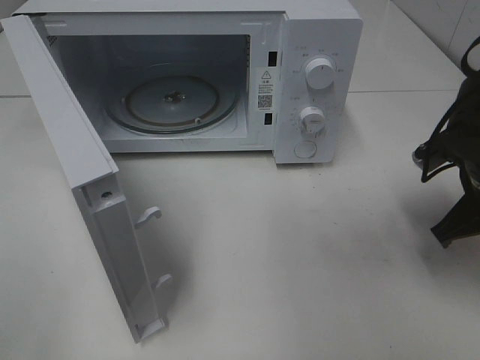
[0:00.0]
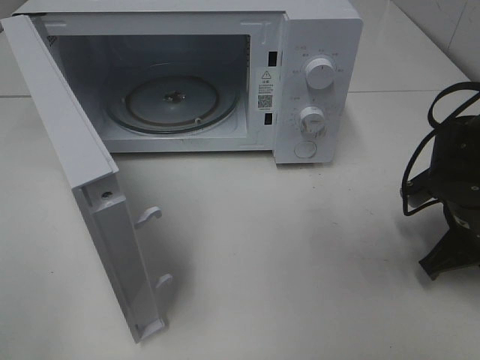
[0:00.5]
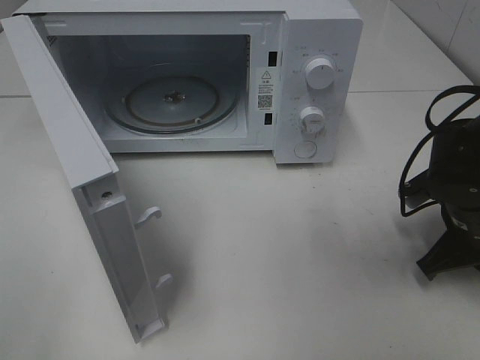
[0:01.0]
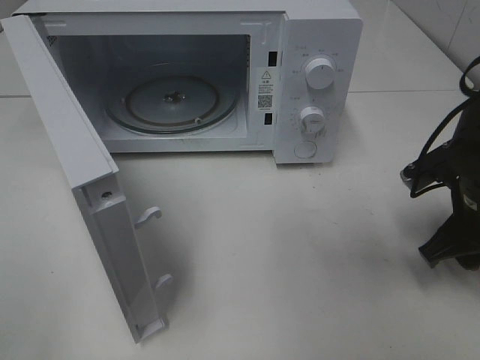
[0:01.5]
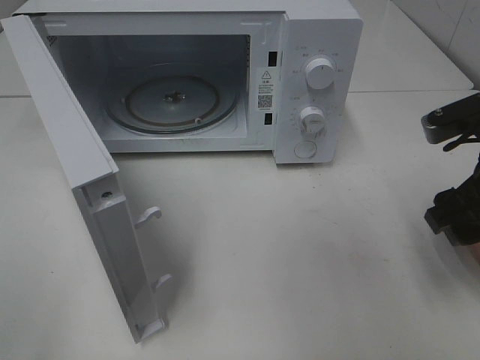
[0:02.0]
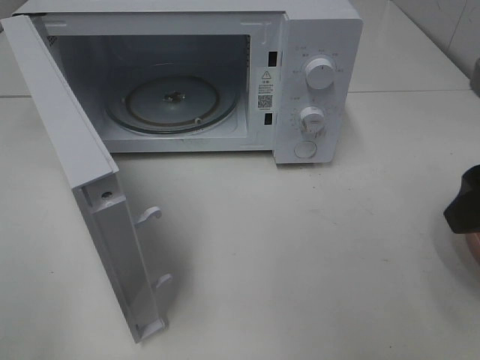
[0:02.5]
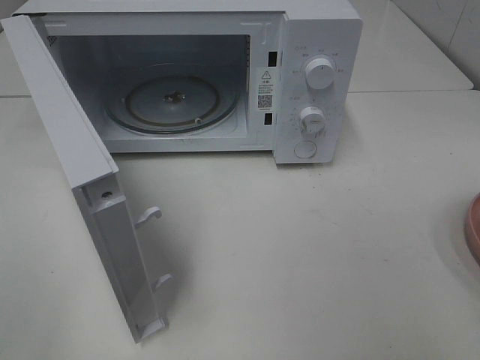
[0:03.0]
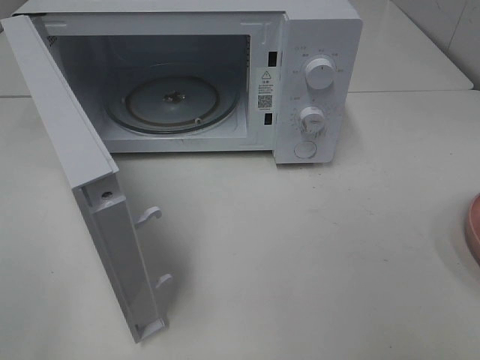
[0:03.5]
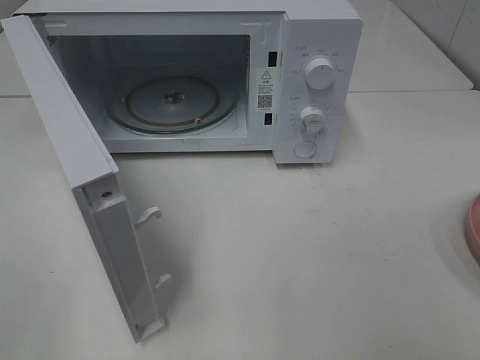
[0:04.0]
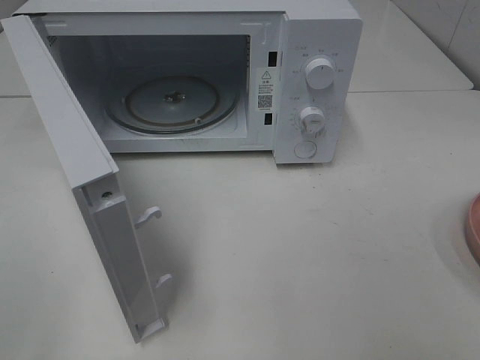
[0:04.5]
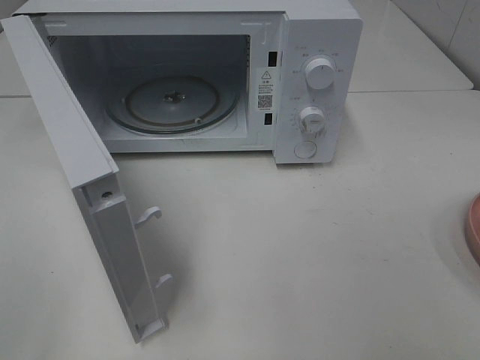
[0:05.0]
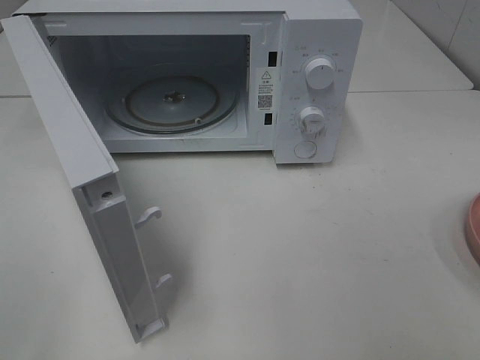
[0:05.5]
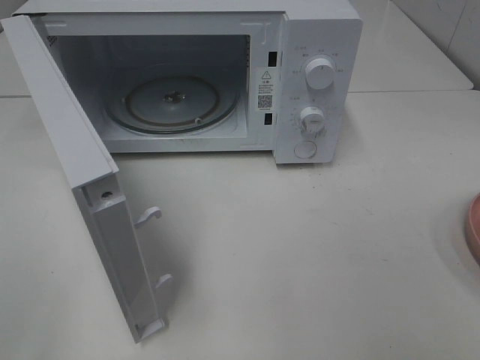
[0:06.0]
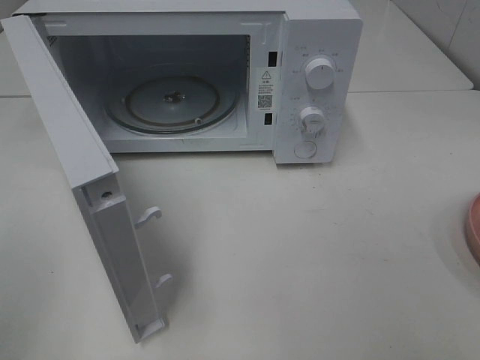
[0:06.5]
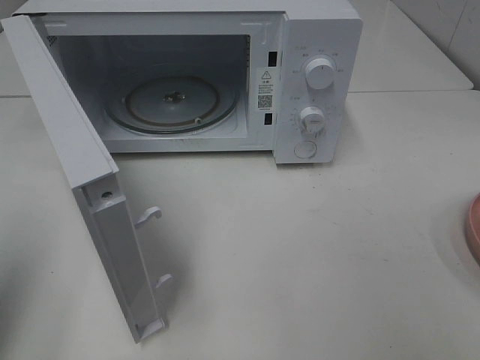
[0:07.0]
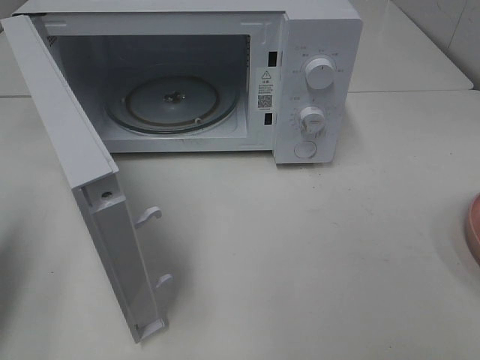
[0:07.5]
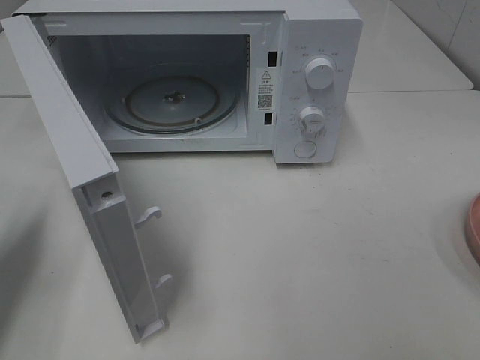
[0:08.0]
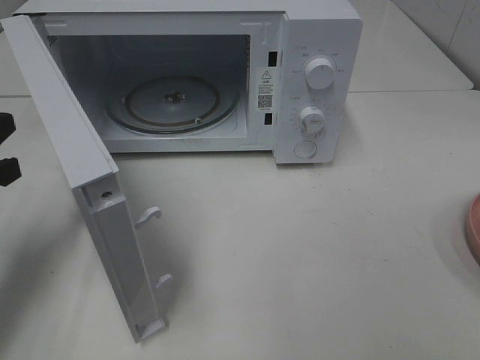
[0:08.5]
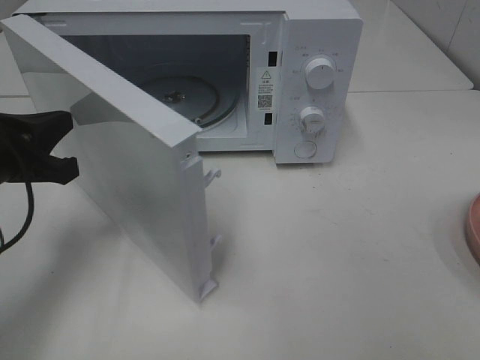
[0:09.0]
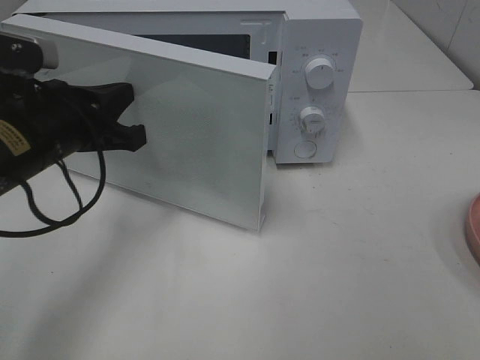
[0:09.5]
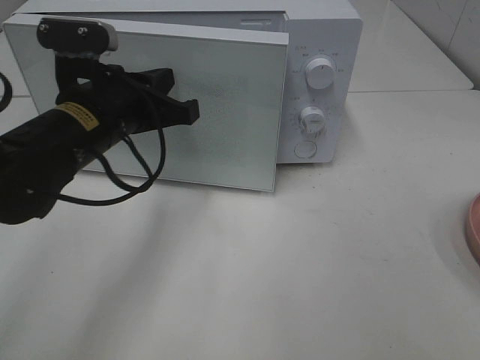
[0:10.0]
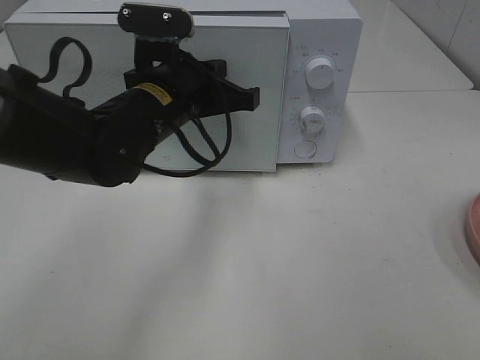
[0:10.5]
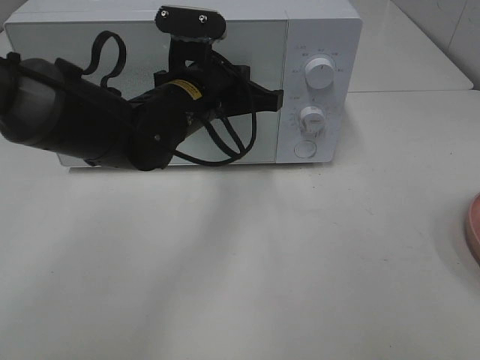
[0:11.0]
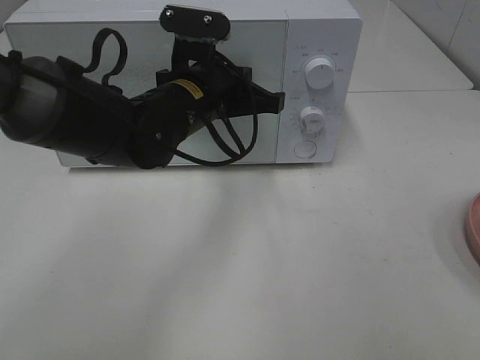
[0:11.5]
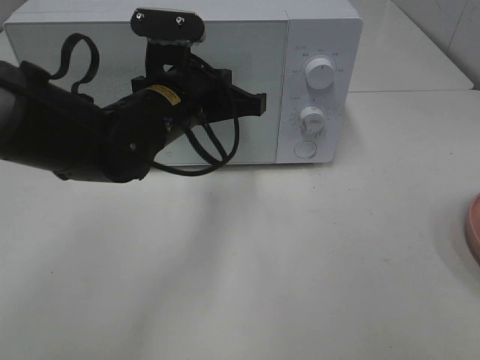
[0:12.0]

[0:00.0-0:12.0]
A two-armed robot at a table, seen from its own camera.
Task of the whole recording: Heat Sandwich.
Step, 2.0 to 11.5 s: Left hand: close the microwave door.
0.0 to 2.0 s: The right gripper is displaced upward by approximately 5 cm, and opens its fingers.
2.0 to 4.0 s: The right gripper shifts roughly 20 cm backward.
4.0 to 6.0 s: Both grippers stay about where they are.
6.0 to 8.0 s: The left gripper goes roughly 25 cm forward and downward, and closes its fingers.
8.0 to 10.0 s: The left gripper travels to the right and forward by roughly 20 cm.
10.0 to 12.0 s: The left gripper heads to the right, covering roughly 5 cm.

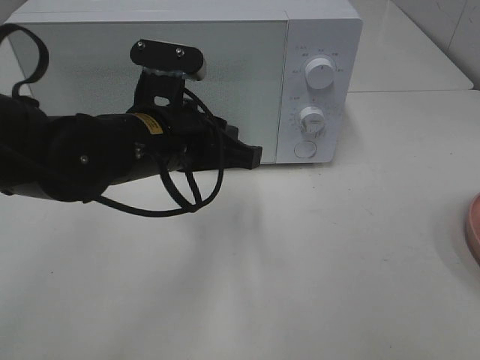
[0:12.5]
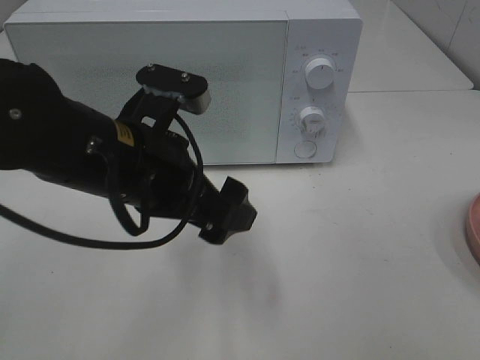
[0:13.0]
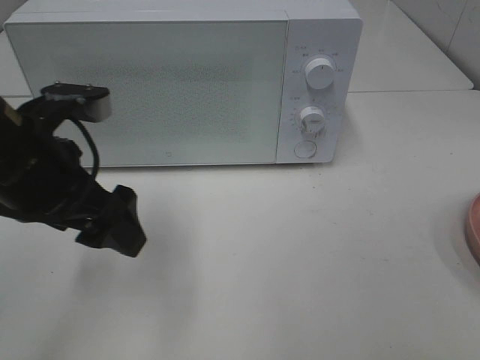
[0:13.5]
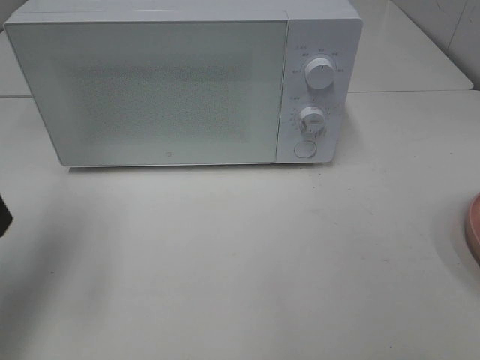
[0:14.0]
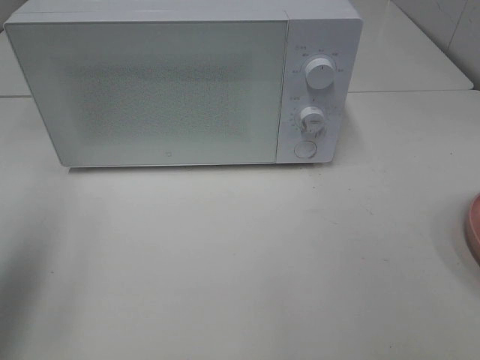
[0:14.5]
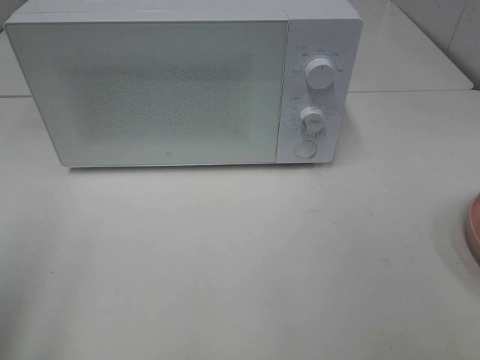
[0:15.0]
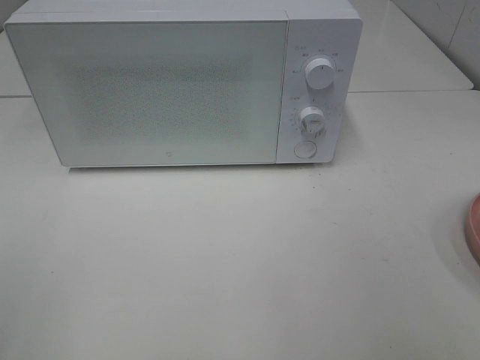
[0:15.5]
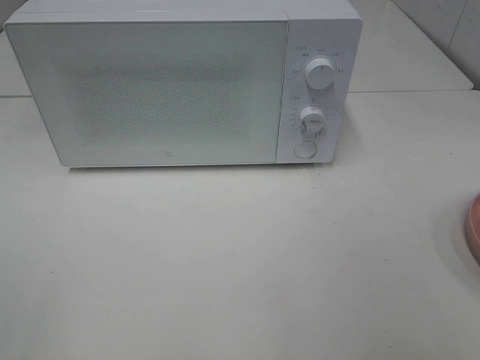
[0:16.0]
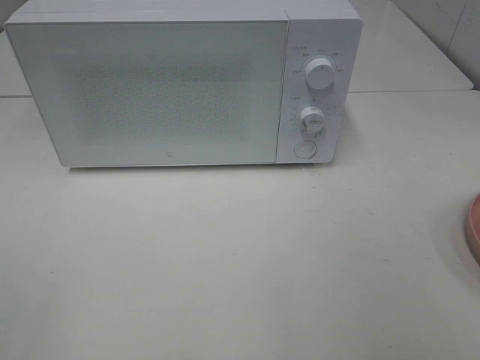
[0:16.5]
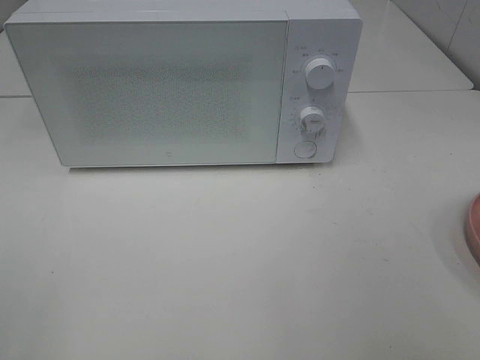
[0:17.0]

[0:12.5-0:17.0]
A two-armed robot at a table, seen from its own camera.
Task of the whole recording: Heat Sandwich.
12.5 to 14.5 s: The left gripper is displaced to the left and upward by roughly 25 cm, and opens its fingers.
14.5 to 17.0 s: The left gripper goes about 20 cm backward.

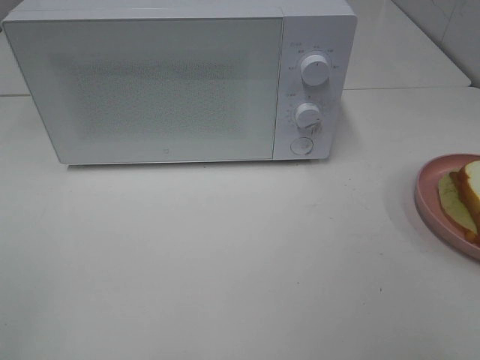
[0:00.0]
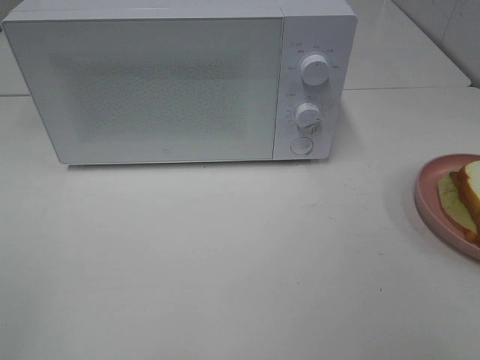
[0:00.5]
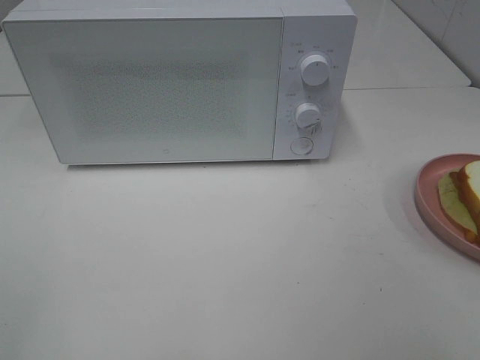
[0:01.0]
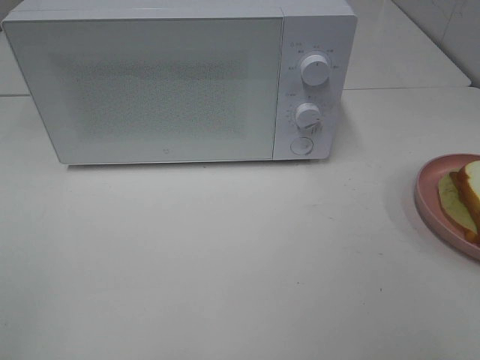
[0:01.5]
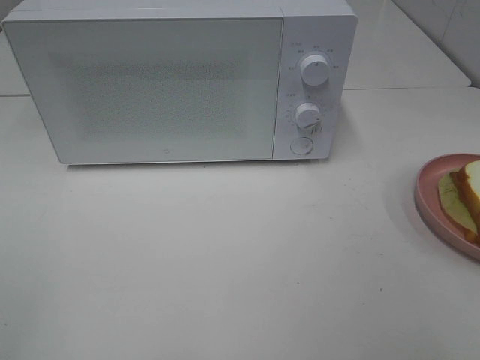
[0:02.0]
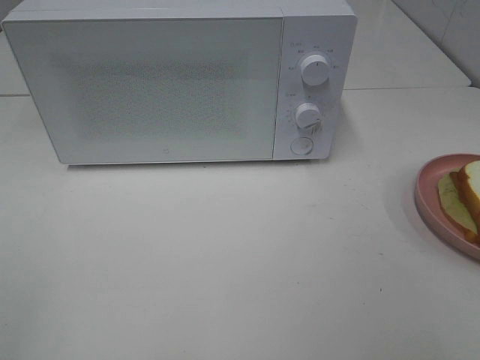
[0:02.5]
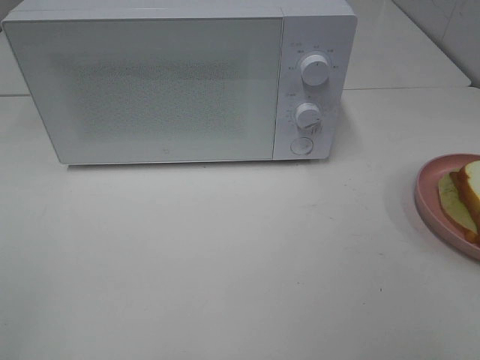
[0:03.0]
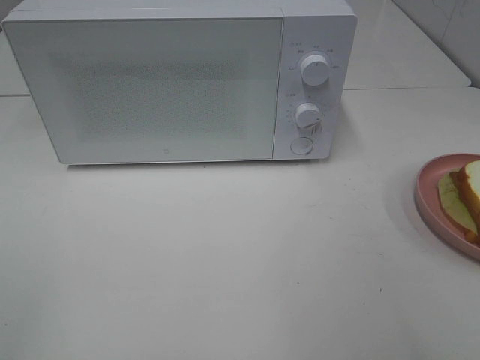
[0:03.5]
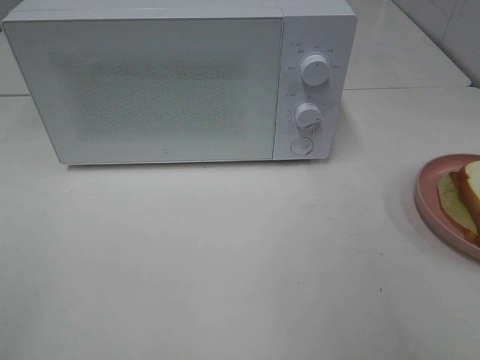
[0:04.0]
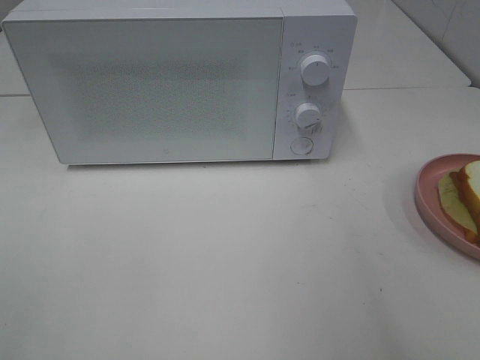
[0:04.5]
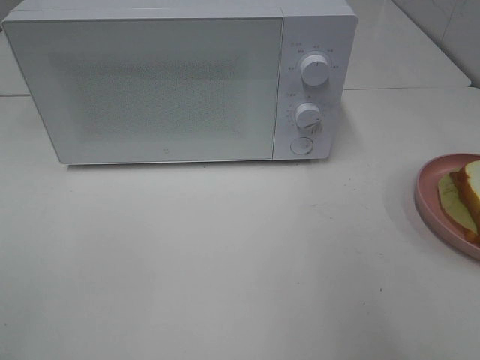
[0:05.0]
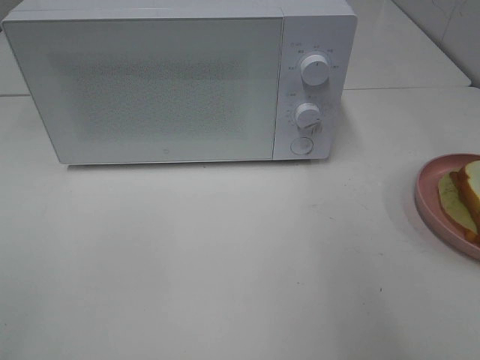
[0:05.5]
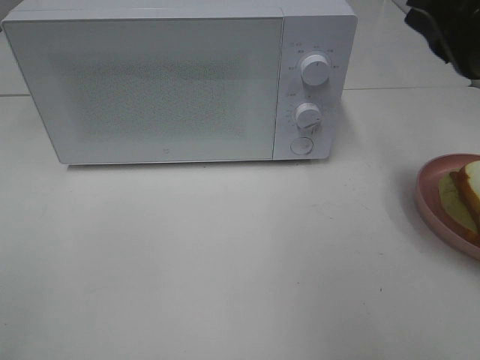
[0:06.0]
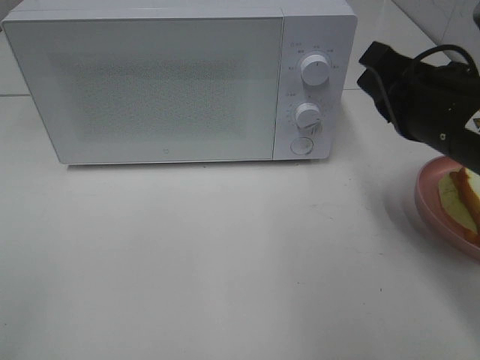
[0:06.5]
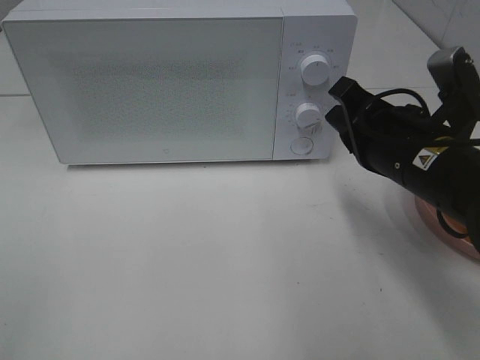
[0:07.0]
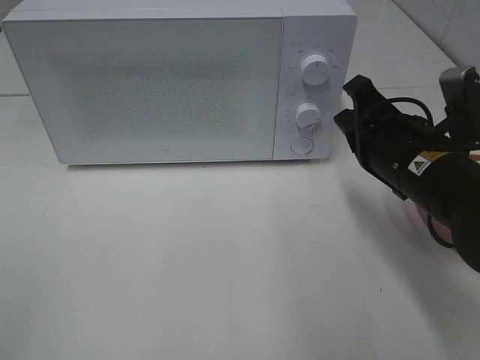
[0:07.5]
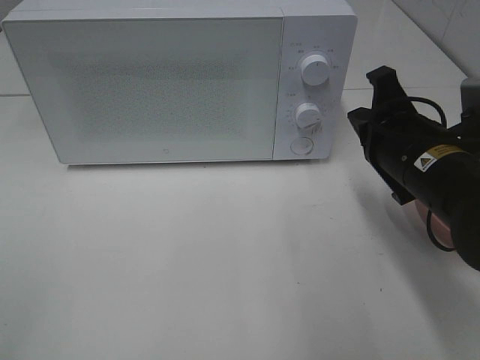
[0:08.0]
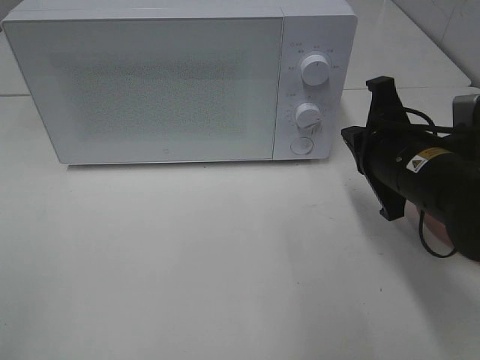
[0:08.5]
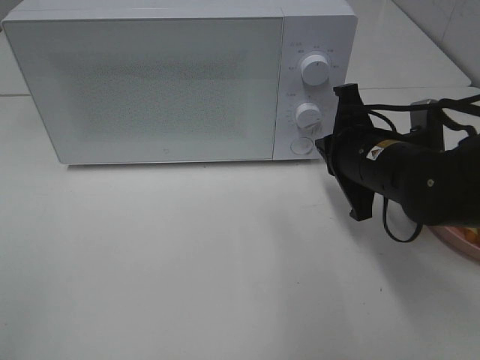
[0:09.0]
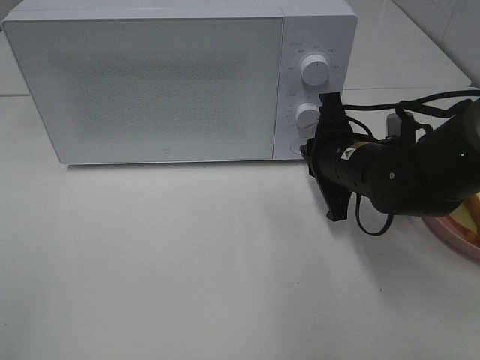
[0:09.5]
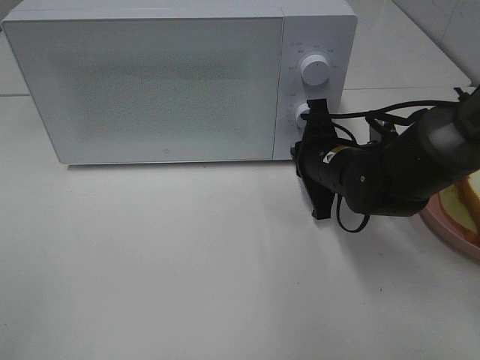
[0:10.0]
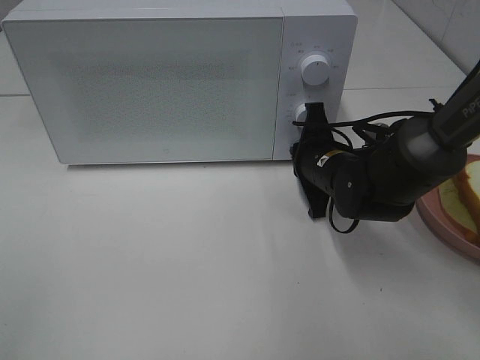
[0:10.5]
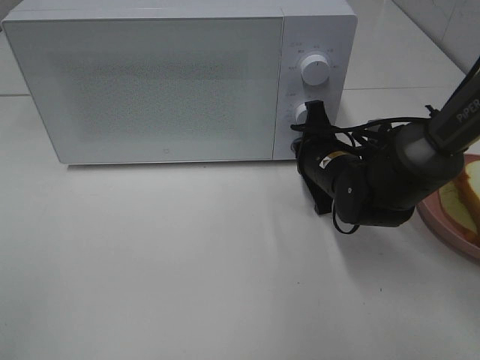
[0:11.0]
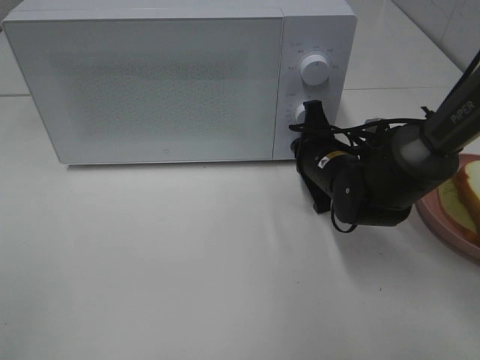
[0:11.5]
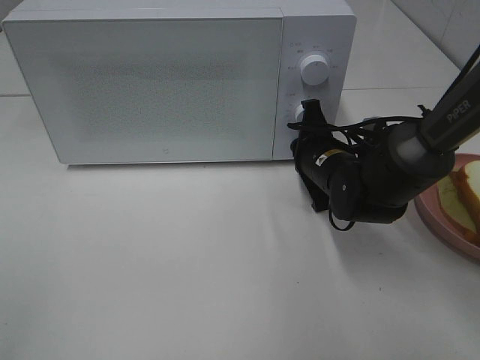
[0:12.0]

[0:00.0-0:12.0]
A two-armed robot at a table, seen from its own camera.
Task of the whole recording: Heat Sandwich.
0.0 to 2.0 s: Both grippers stay put.
4.0 to 6.0 s: The right gripper shifts roughly 15 cm forward, and closes its fingers.
6.0 to 8.0 s: The right gripper goes about 10 cm downward.
8.0 to 10.0 s: The right gripper shifts roughly 10 cm forward, downward and to the left.
10.0 to 12.0 s: There are only small adjustments of the grippers.
